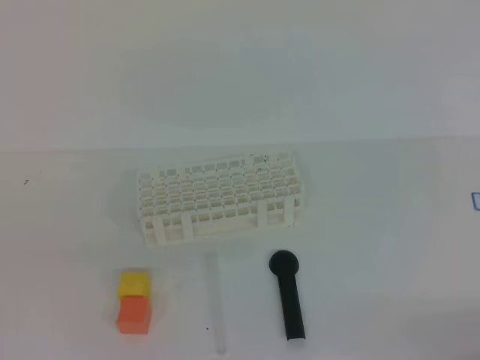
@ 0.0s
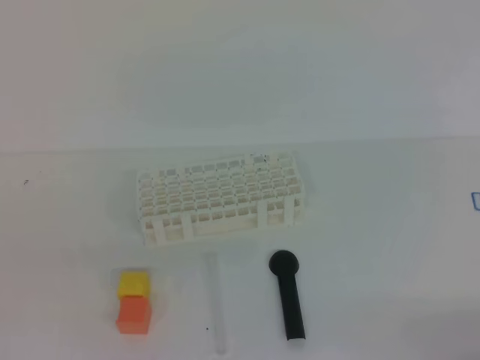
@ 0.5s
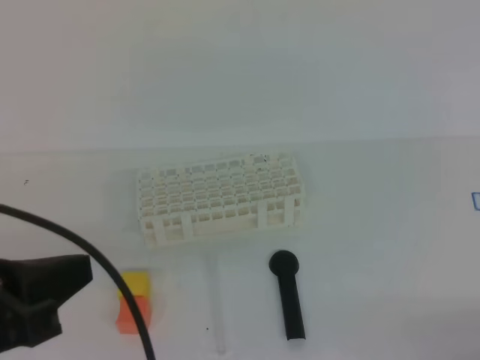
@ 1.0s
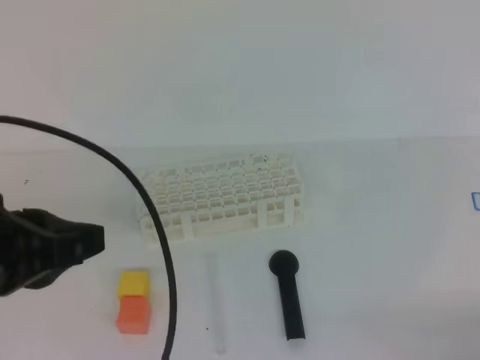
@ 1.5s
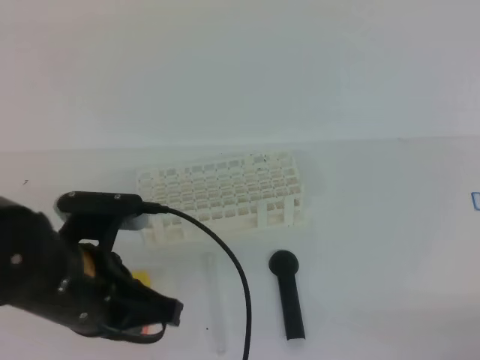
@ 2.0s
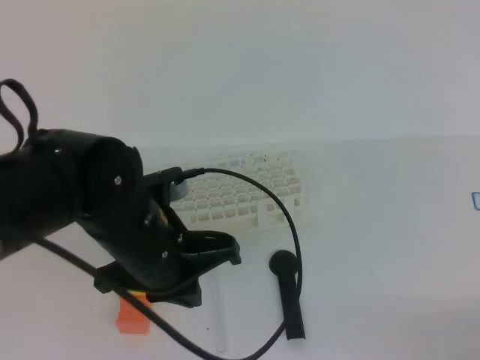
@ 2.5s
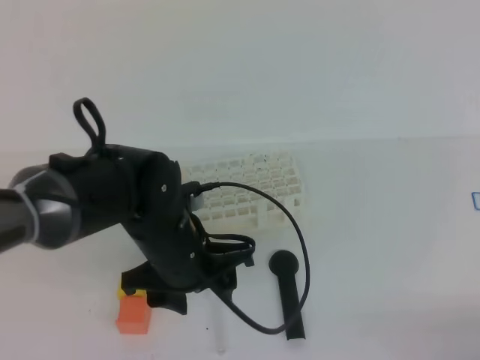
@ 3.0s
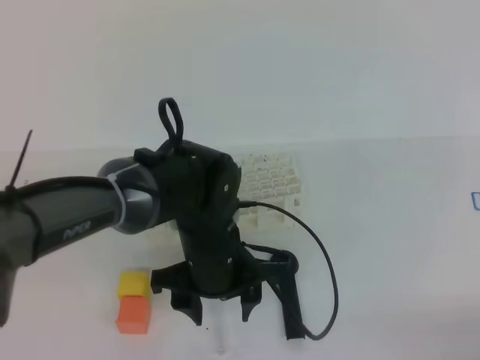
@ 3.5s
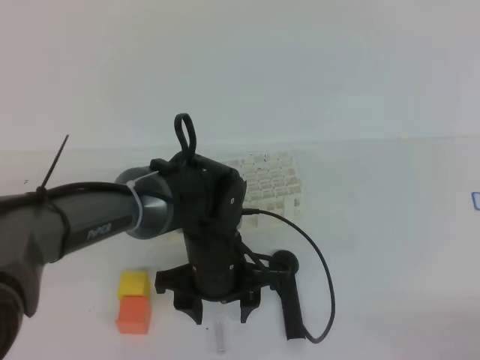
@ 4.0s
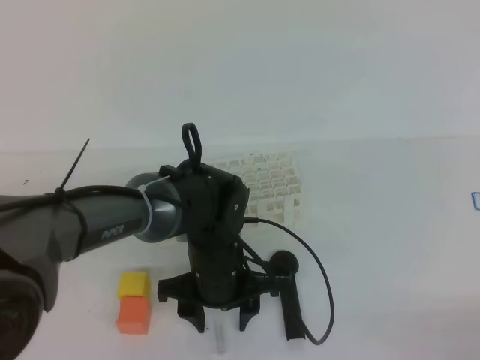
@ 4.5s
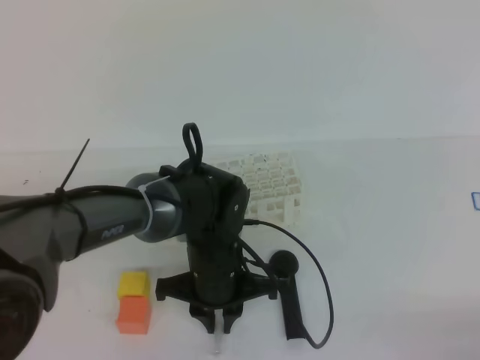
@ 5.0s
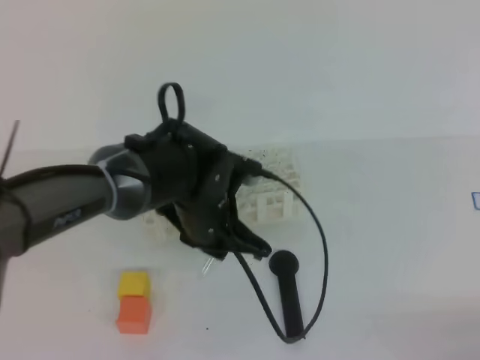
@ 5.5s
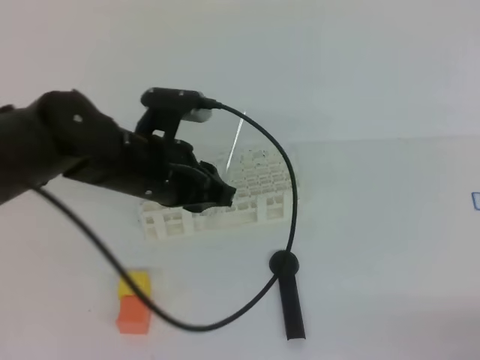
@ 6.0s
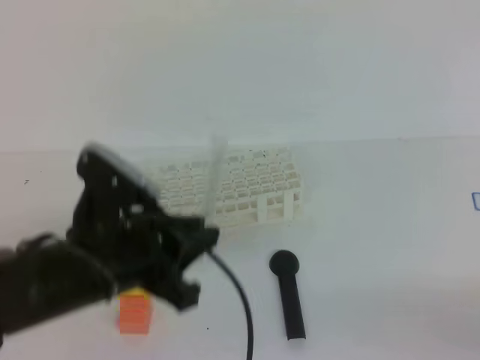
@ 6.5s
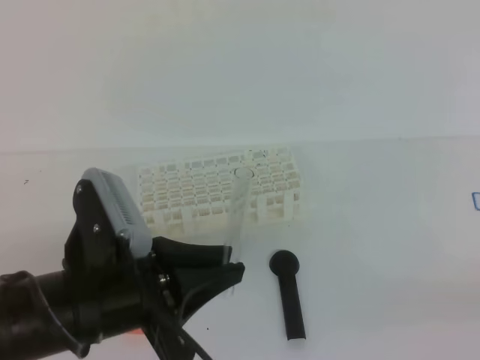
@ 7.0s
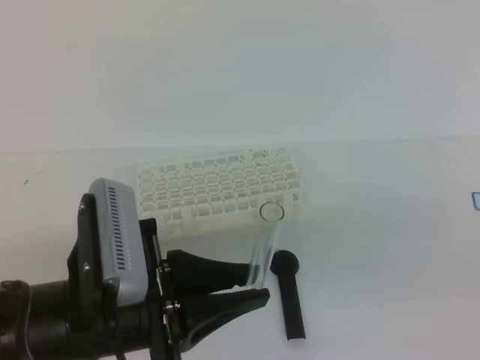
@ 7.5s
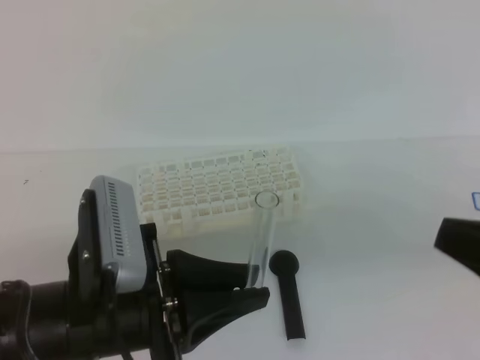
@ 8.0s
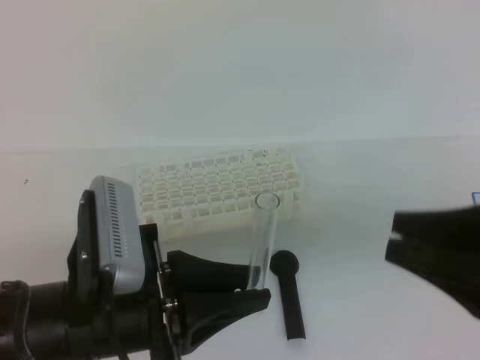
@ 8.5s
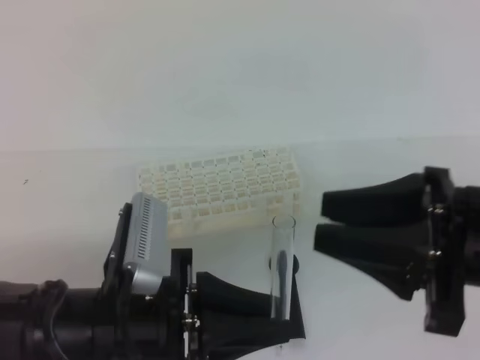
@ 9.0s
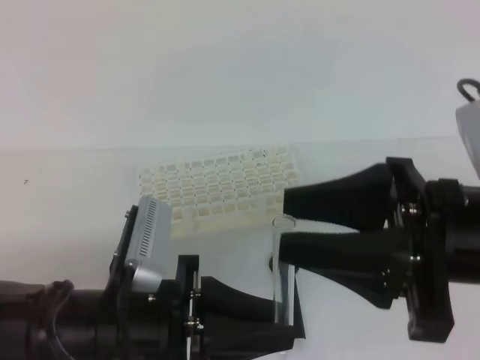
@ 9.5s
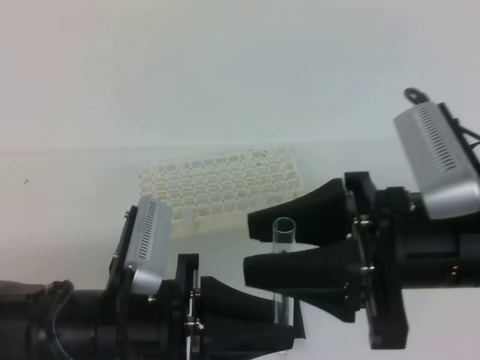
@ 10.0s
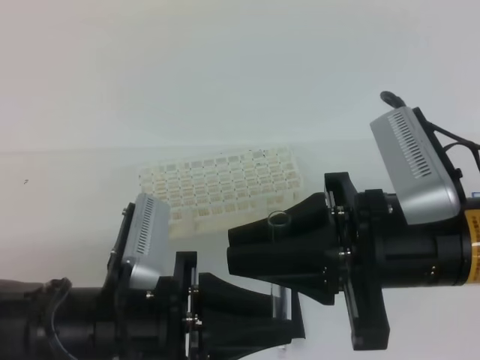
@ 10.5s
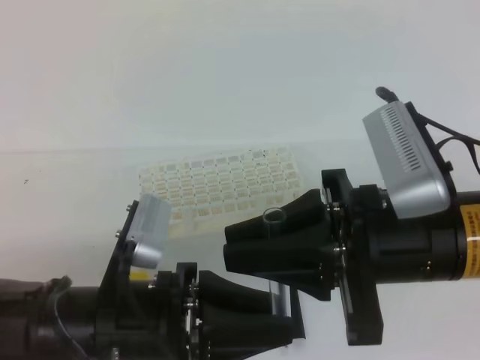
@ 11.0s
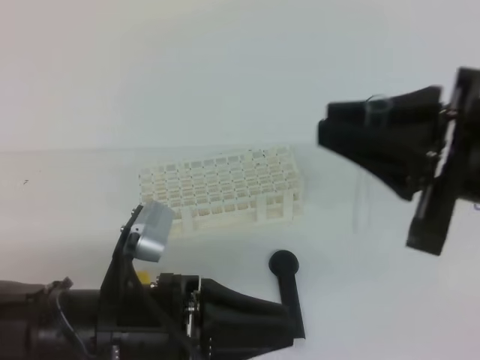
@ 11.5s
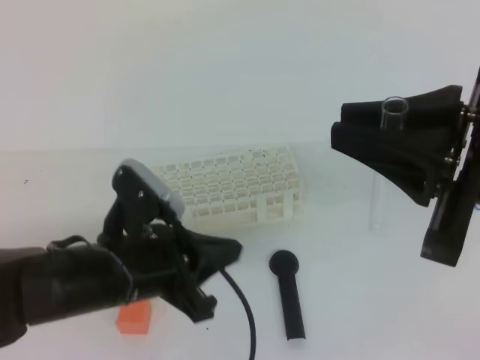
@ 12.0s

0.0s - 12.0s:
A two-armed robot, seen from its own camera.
0.0s - 2.0s: The left gripper heads forward, to the right and downward, covering about 20 cm.
2.0s - 4.0s: The left gripper travels to the right, downward and forward by roughly 20 cm, and opens its fingers.
4.0s - 6.0s: The left gripper is displaced upward and to the left by approximately 10 cm, and closes.
6.0s - 8.0s: The right gripper is displaced upward, to the left and forward by some 15 cm. The left gripper travels backward by about 15 cm.
8.0s - 10.0s: The right gripper travels to the left by roughly 10 cm, and opens.
10.0s - 12.0s: The right gripper goes roughly 5 cm upward, and closes up; the left gripper goes about 5 cm forward, and opens and closes again.

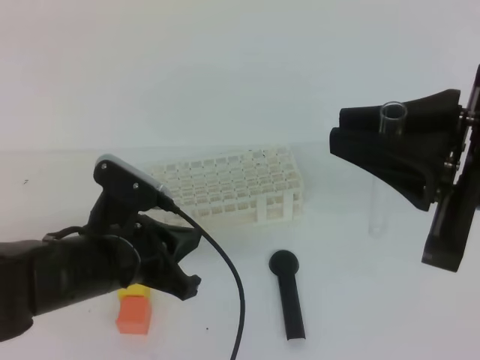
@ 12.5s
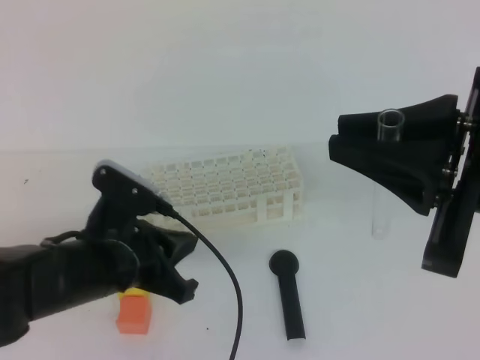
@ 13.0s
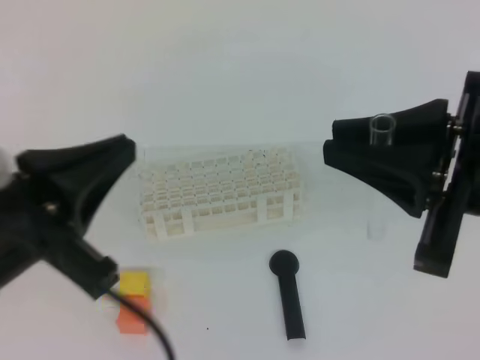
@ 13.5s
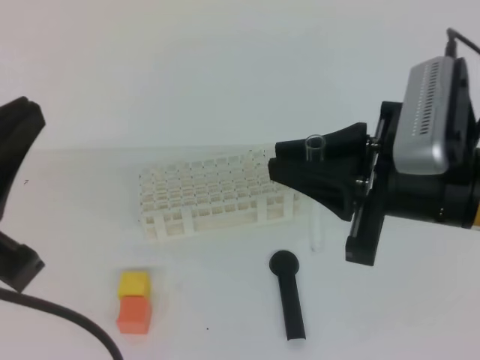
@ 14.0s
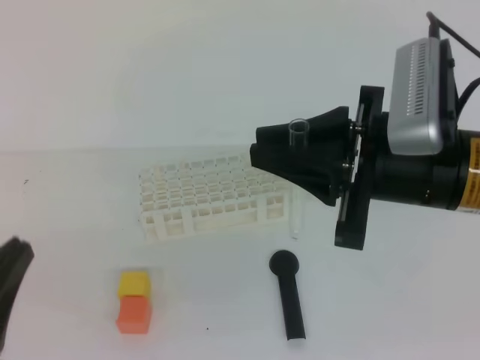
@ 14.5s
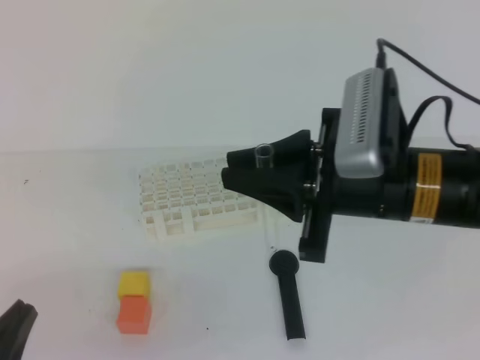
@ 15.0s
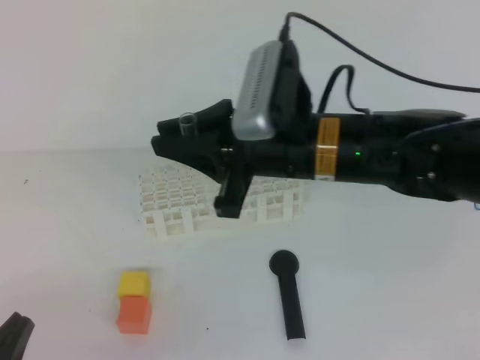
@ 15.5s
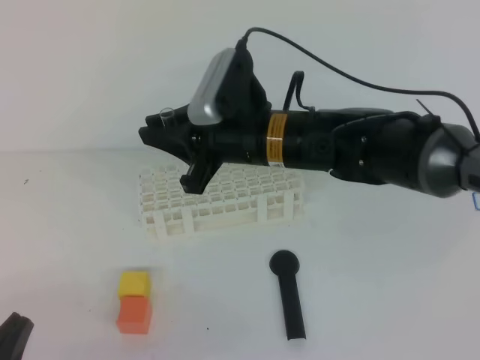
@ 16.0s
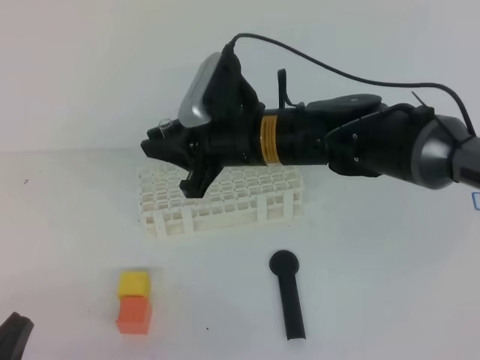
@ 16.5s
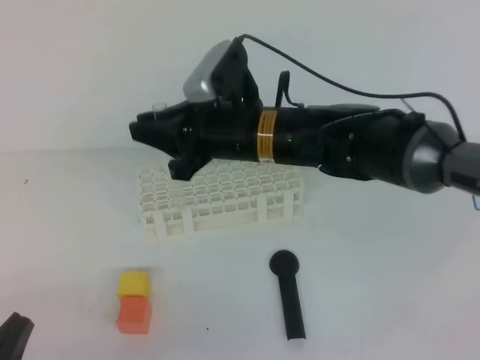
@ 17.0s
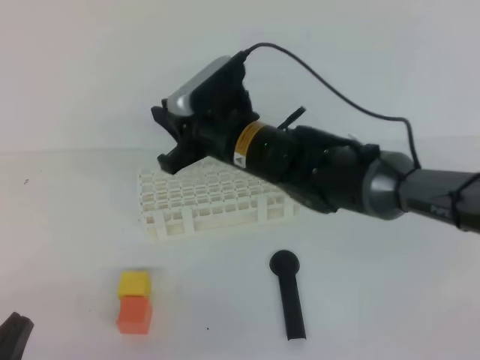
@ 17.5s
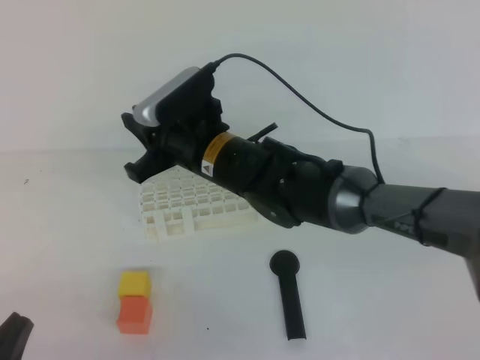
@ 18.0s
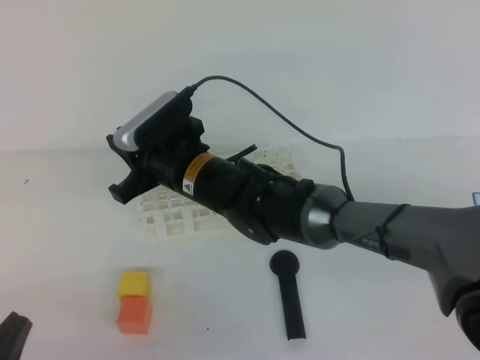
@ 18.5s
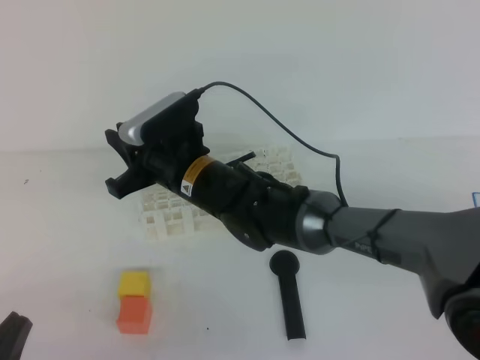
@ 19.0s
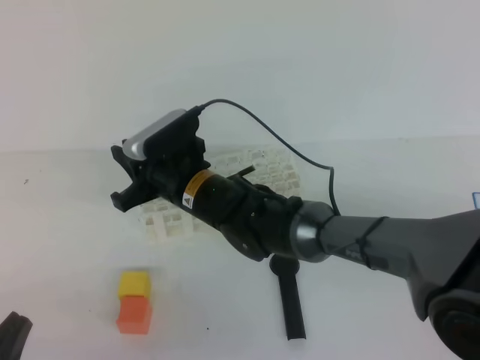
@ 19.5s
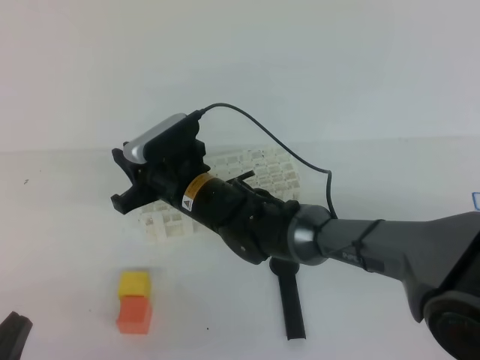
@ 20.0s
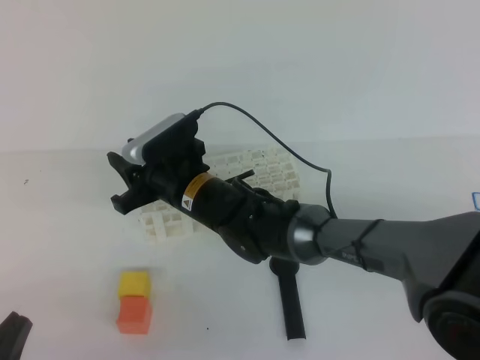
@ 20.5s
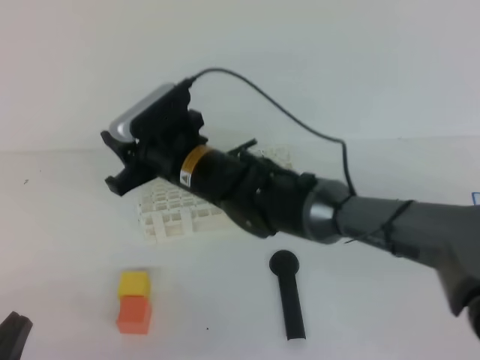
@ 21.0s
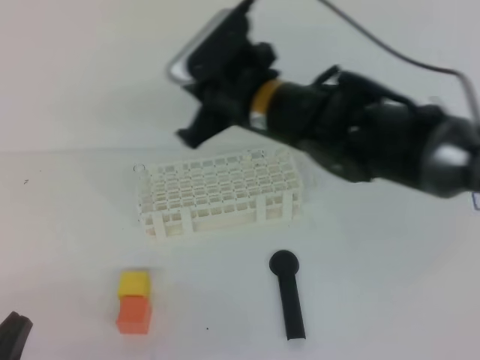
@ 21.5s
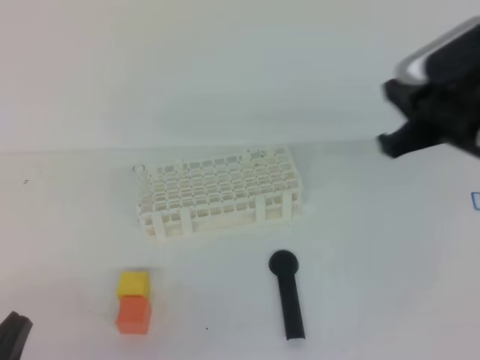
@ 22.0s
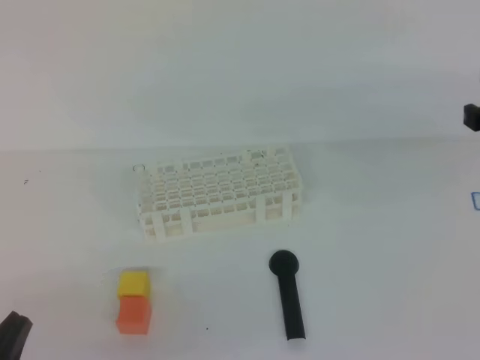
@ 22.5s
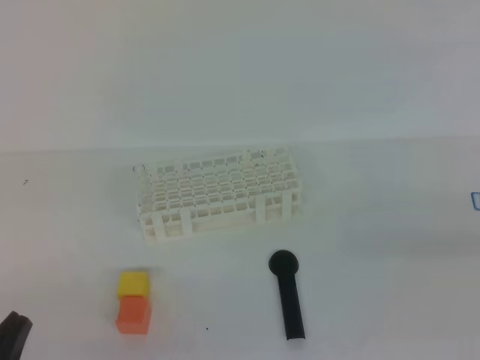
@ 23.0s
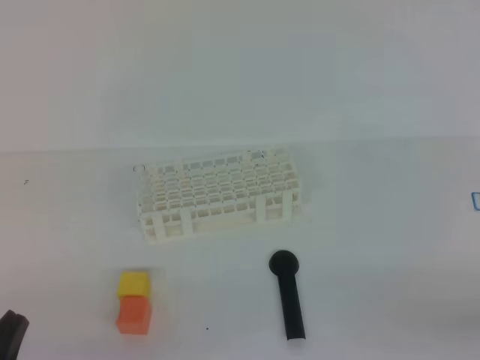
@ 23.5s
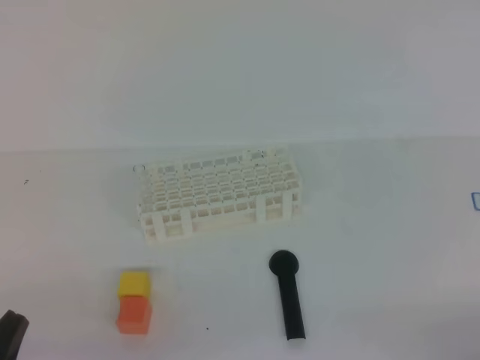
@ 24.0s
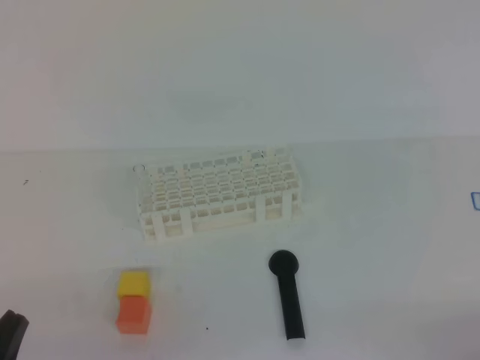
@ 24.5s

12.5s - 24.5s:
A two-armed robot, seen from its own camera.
12.5s - 14.5s: The right gripper goes some 5 cm forward. The left gripper is displaced backward, to the left and upward by some 20 cm.
14.5s - 16.5s: The right gripper shifts approximately 20 cm to the left, forward and downward. Meanwhile the left gripper shifts approximately 10 cm downward.
16.5s - 18.5s: The right gripper moves to the left and downward, some 10 cm.
18.5s - 20.5s: The right gripper opens up.
20.5s - 22.5s: The right gripper moves to the right and upward, approximately 35 cm, and closes its fingers.
22.5s - 24.5s: The right gripper goes some 30 cm backward and downward.
